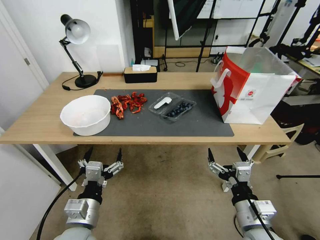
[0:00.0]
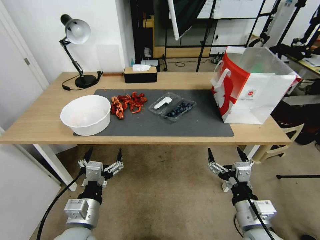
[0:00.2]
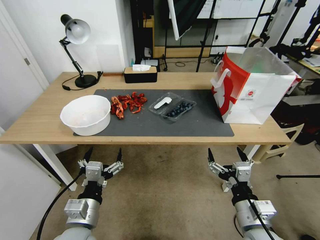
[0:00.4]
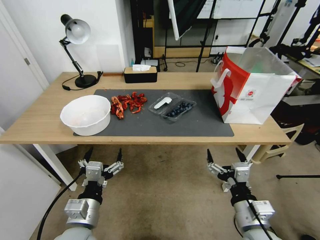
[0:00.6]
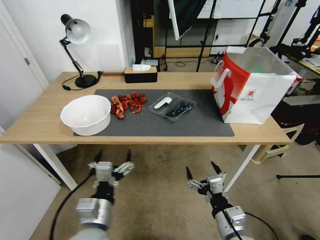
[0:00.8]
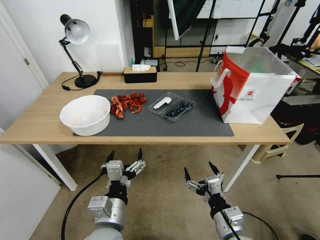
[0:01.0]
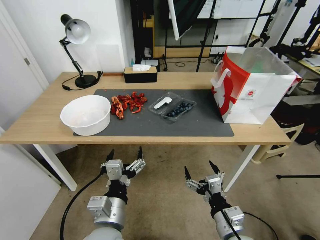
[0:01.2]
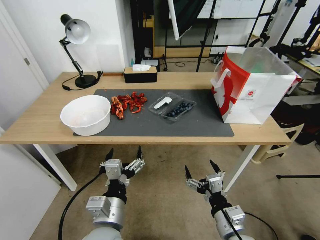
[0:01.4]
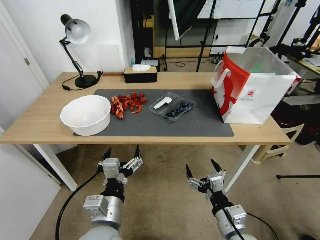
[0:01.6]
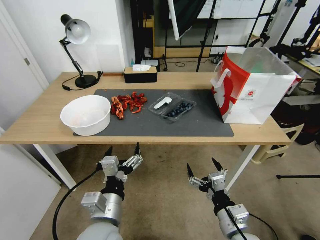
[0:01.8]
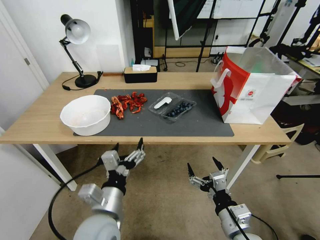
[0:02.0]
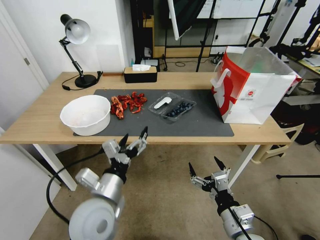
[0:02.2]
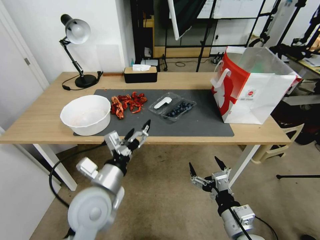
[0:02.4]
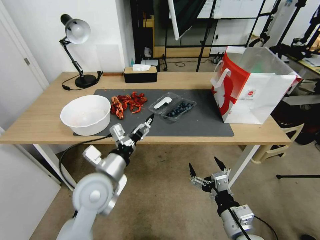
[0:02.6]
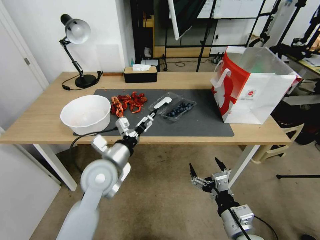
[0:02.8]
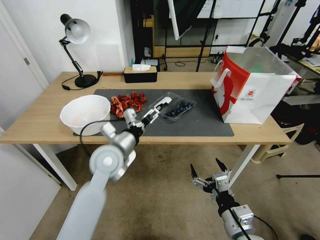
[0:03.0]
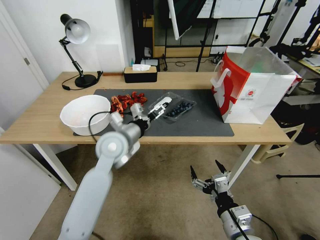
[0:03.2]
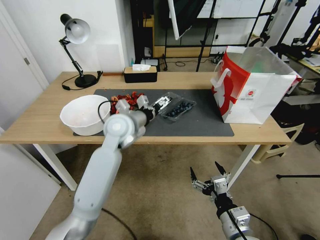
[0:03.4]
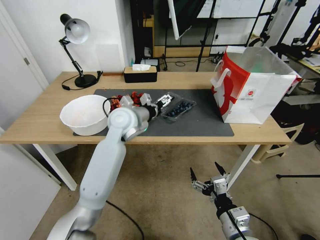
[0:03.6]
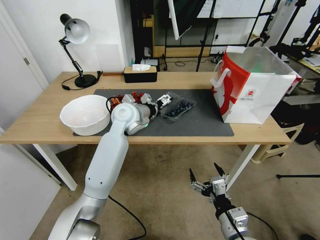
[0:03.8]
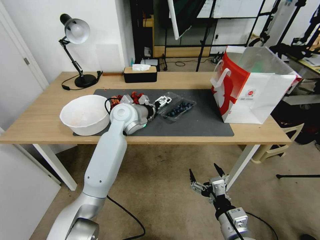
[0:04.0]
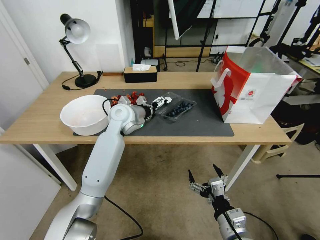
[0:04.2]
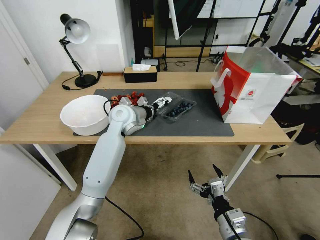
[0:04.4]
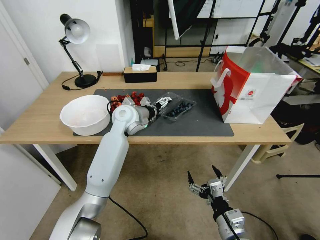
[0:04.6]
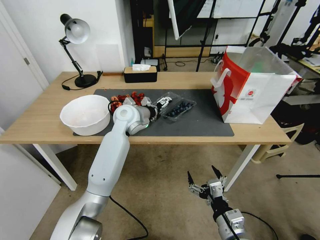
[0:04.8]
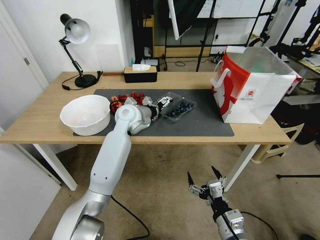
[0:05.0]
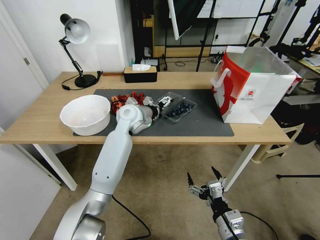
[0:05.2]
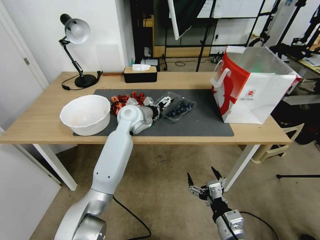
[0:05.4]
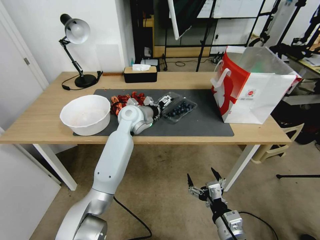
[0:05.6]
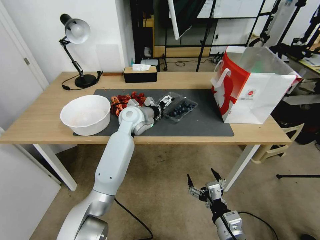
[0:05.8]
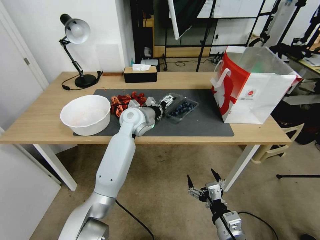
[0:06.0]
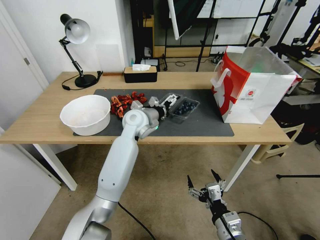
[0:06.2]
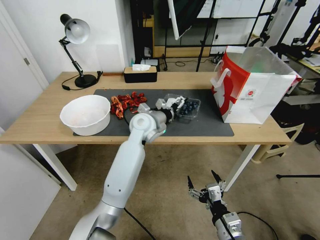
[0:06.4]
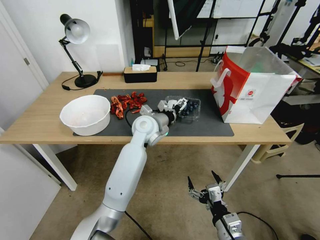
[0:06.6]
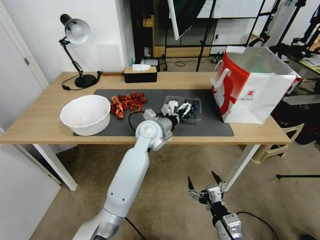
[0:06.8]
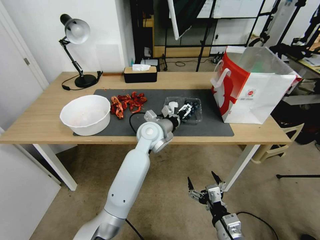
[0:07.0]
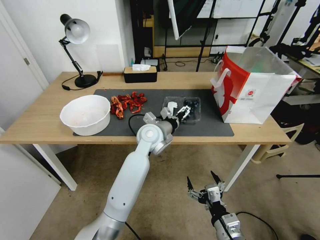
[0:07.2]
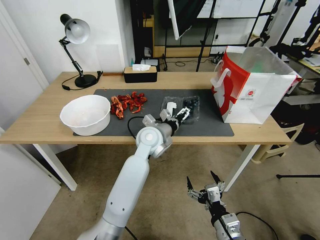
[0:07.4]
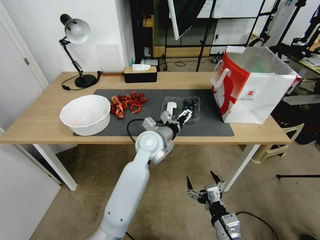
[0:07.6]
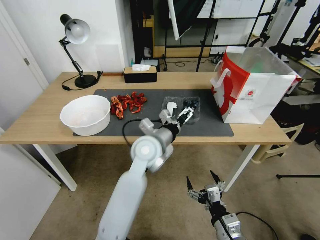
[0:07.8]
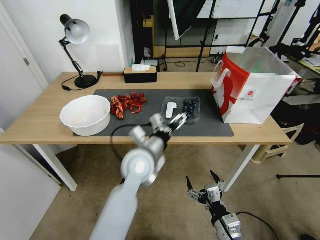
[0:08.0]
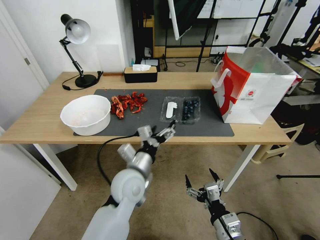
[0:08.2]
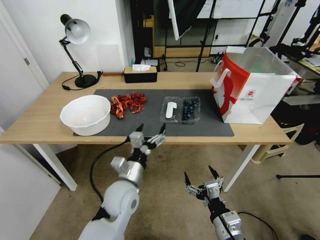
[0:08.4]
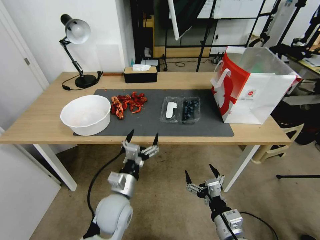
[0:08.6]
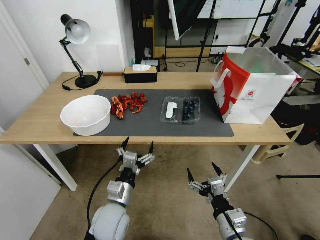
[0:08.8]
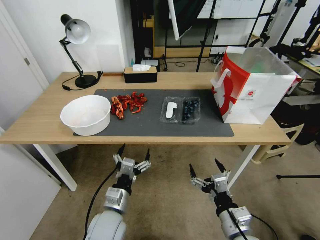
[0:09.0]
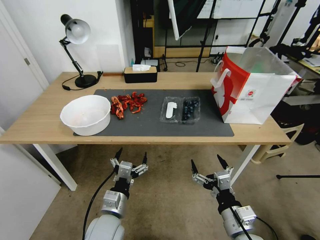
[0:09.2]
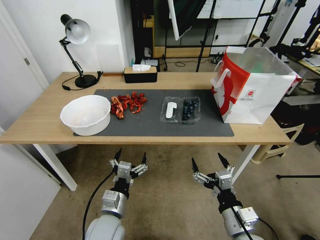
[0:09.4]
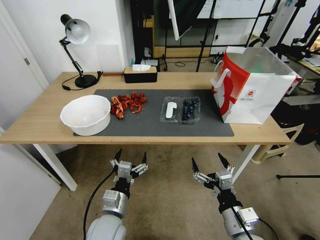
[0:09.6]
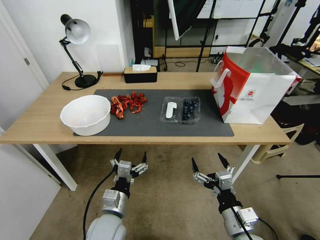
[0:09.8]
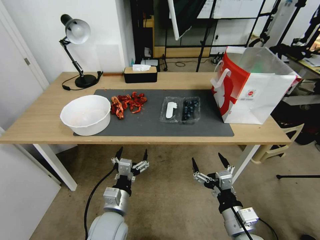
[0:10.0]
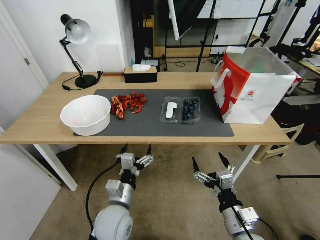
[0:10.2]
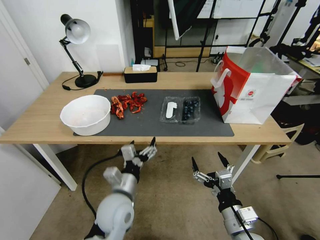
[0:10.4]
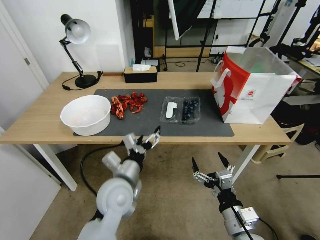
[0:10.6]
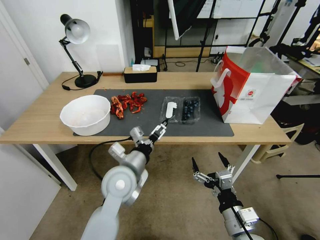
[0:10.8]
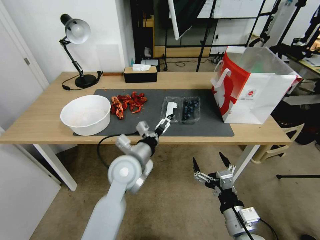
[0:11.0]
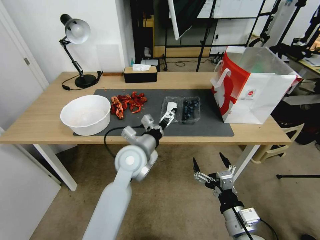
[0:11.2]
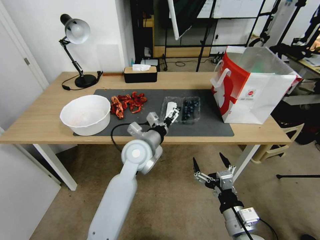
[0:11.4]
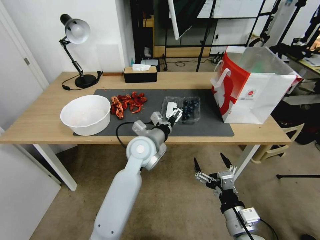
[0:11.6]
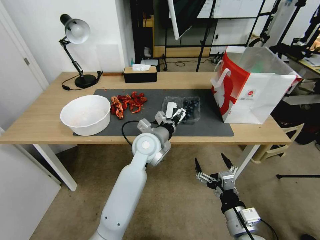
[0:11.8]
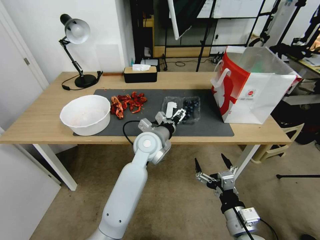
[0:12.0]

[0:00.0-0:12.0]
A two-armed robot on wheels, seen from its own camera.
Task of the whole recording: Close the takeout container lid, then place the container into the takeout bag.
0:01.6 to 0:03.0: The left gripper shifts roughly 20 cm forward.
0:03.0 to 0:04.4: The left gripper travels forward by about 15 cm.
0:04.4 to 0:06.0: There are only small adjustments of the grippers.
0:06.0 to 0:07.6: The left gripper heads backward and to the right, covering some 10 cm.
0:07.6 to 0:09.0: The left gripper travels backward, downward and to the left by approximately 25 cm.
0:09.0 to 0:10.4: The left gripper changes place by roughly 5 cm.
0:10.4 to 0:12.0: The left gripper shifts some 20 cm forward, to the right and upward.

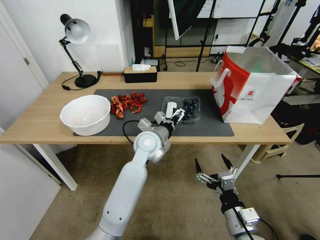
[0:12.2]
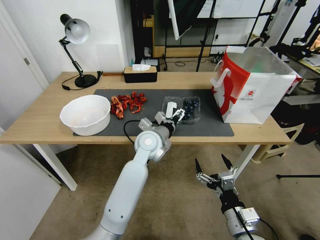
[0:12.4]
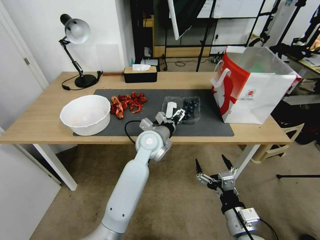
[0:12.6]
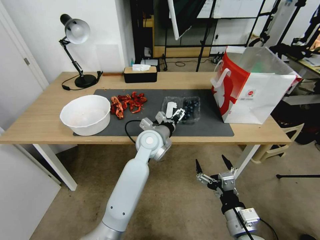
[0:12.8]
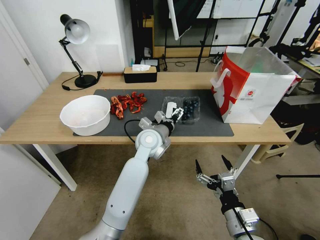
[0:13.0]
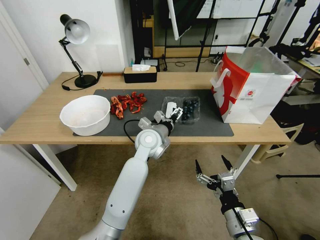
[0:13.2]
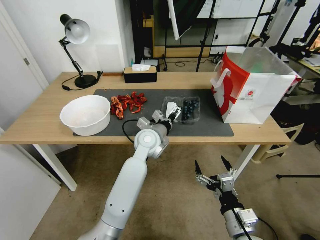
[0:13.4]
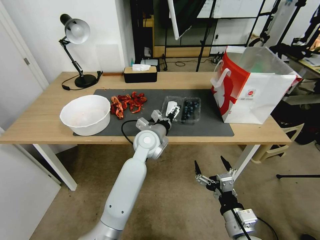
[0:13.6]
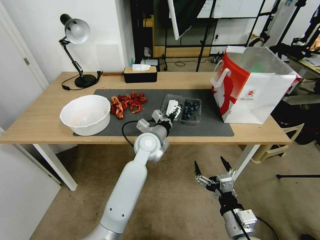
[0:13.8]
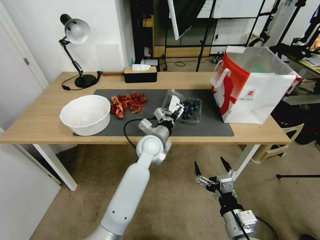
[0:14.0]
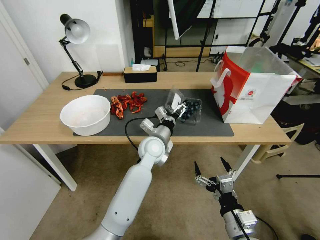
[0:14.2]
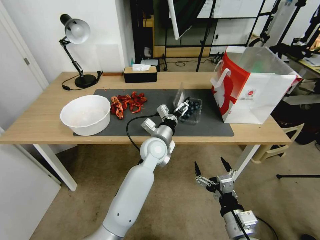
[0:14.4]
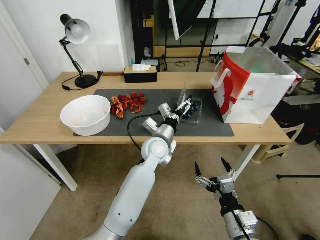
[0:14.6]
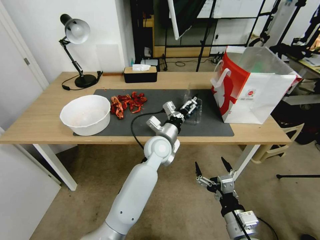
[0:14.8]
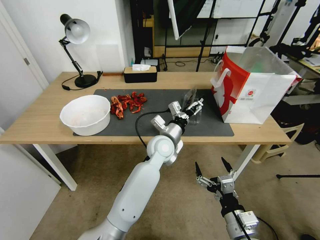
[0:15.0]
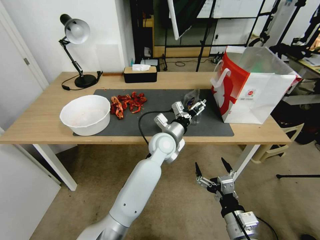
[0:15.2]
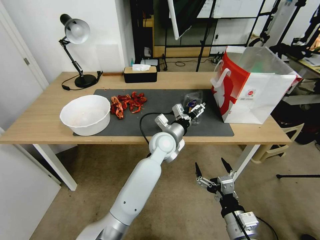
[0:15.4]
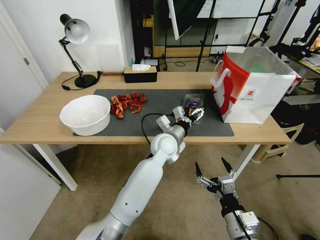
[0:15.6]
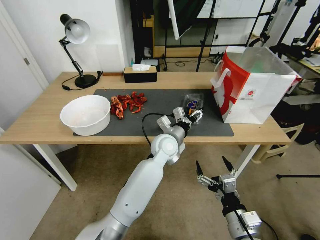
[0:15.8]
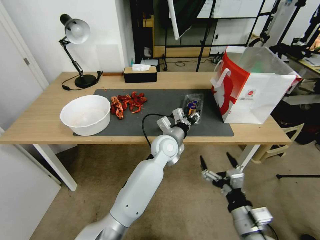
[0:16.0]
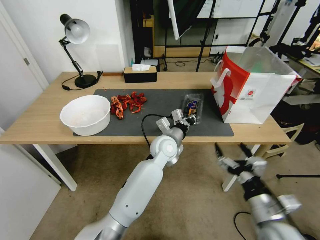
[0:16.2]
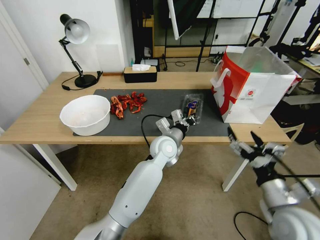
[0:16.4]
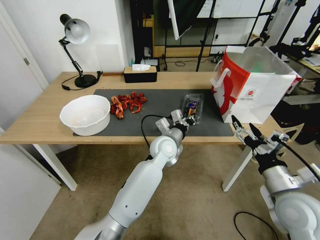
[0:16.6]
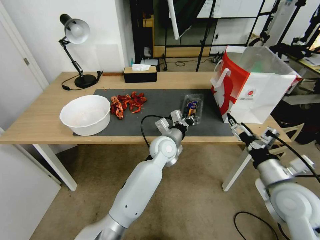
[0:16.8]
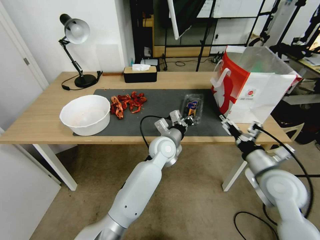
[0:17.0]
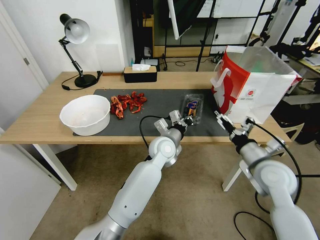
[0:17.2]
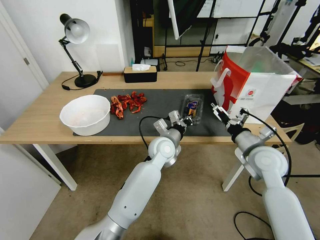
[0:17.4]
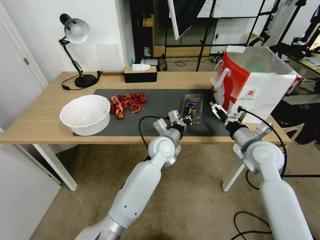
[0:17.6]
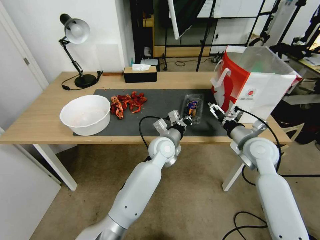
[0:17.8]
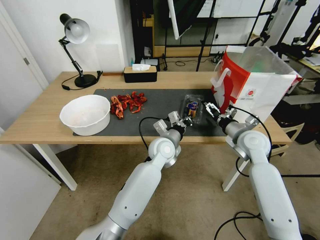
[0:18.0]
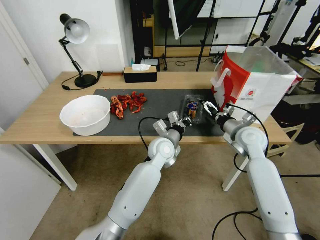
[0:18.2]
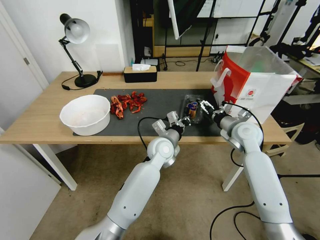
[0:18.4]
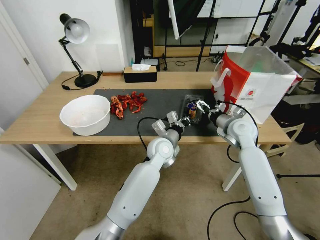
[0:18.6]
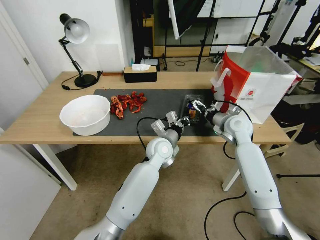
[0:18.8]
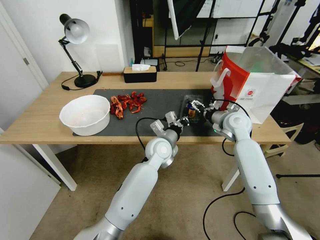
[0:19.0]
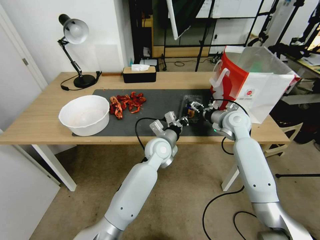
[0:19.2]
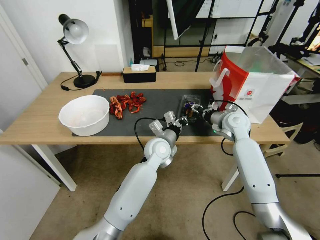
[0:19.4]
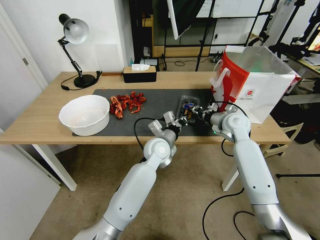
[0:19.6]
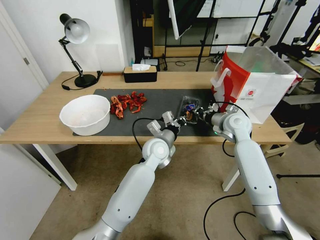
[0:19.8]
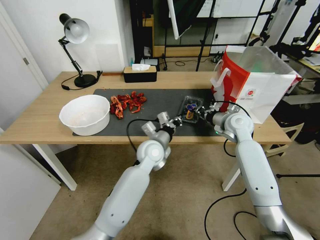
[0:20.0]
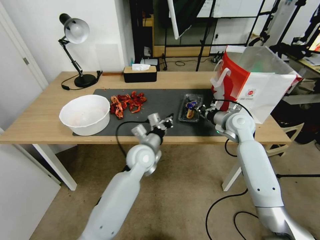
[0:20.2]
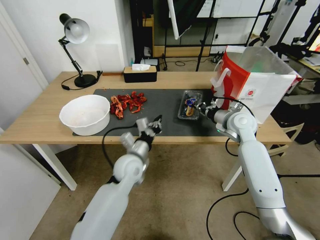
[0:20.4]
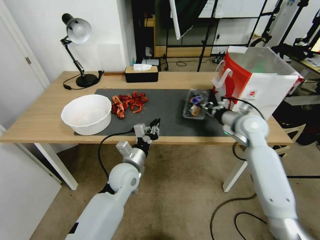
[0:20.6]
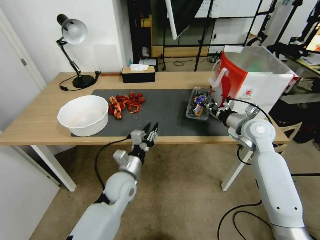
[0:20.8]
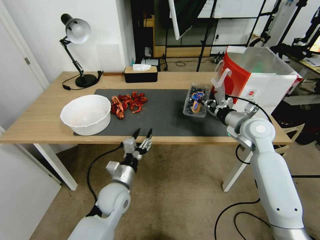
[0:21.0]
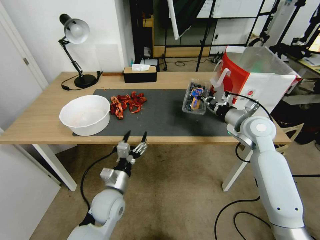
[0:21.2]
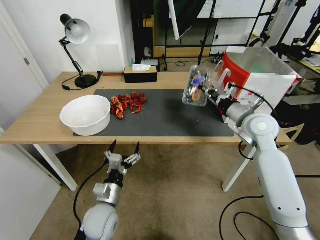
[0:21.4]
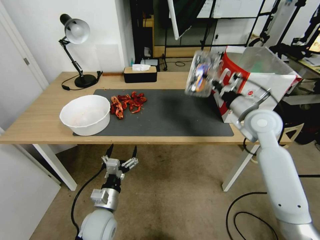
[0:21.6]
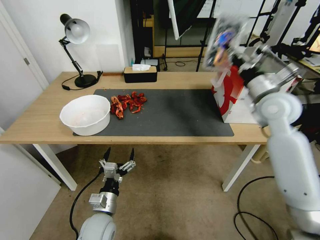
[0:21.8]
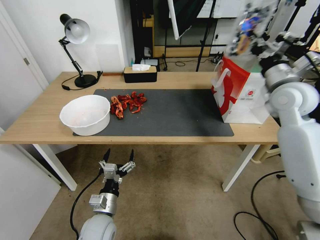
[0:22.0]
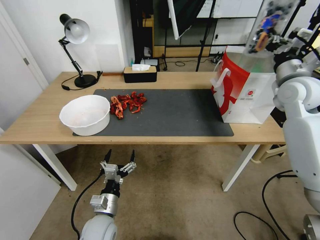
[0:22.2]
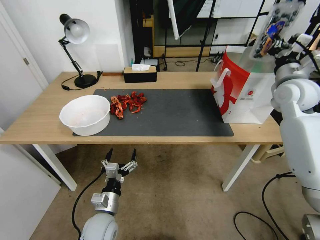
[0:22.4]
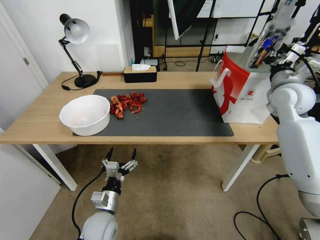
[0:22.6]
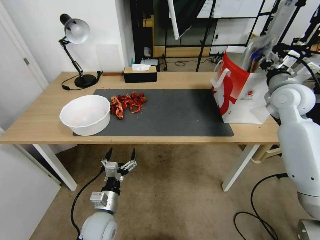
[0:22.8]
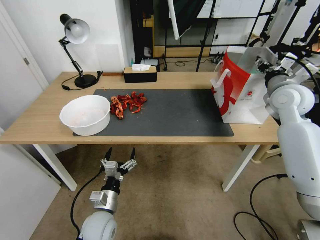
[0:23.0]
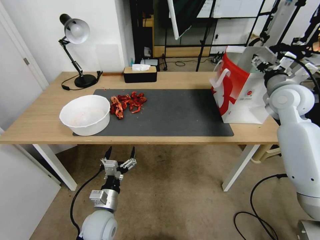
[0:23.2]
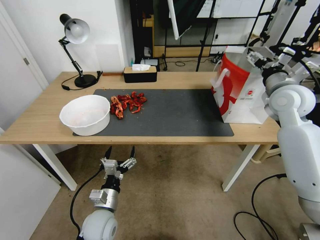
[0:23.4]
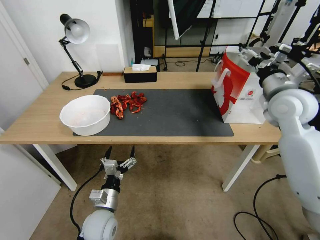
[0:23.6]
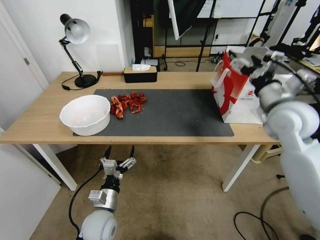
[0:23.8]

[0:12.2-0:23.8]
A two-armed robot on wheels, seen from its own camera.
Task of the whole recording: Close the takeout container lid, then place the container into the takeout bag.
0:12.2 to 0:13.6: The grippers move only a little.
0:13.6 to 0:15.0: The left gripper shifts by roughly 5 cm.
0:15.0 to 0:16.6: The right gripper heads upward, to the right and forward, covering about 15 cm; the left gripper closes up.
0:16.6 to 0:18.0: The right gripper travels forward by approximately 20 cm.
0:18.0 to 0:19.4: The right gripper is displaced forward by approximately 10 cm, and closes up.
0:19.4 to 0:21.0: The left gripper goes roughly 20 cm backward, to the left and downward, and opens up, while the right gripper travels backward by roughly 5 cm, and closes up.
0:21.0 to 0:22.4: The left gripper shifts roughly 5 cm backward, and opens up; the right gripper is displaced upward and to the right by roughly 15 cm.
0:22.4 to 0:23.8: The right gripper travels backward and to the left by approximately 10 cm, and opens its fingers.
